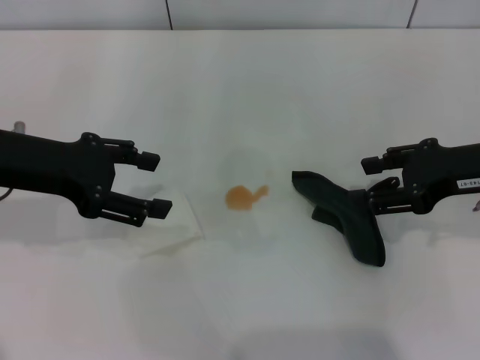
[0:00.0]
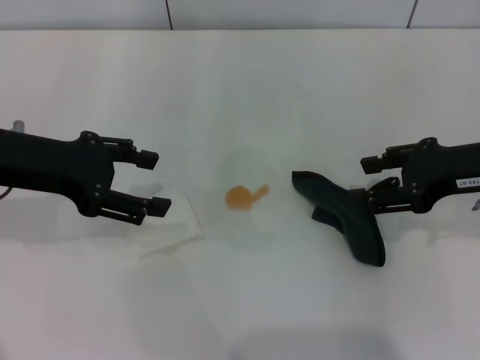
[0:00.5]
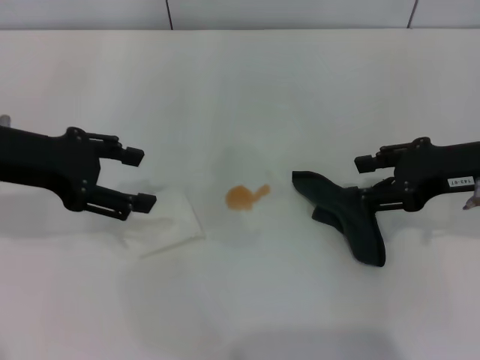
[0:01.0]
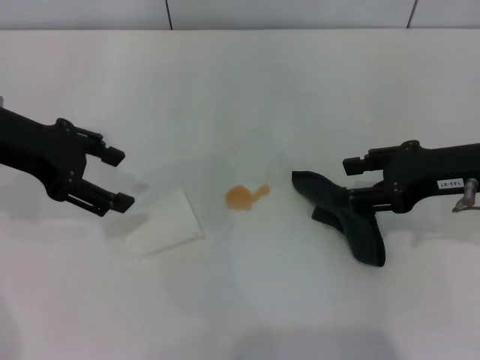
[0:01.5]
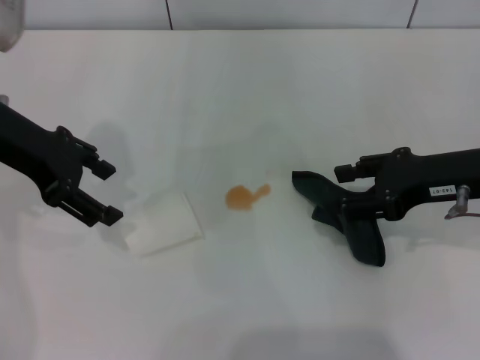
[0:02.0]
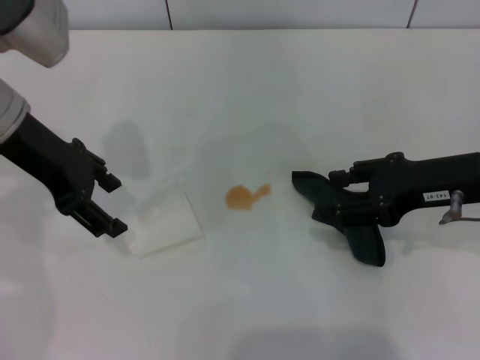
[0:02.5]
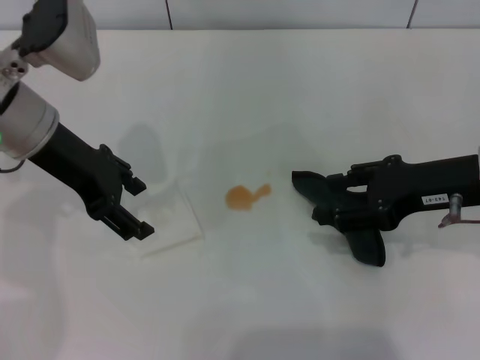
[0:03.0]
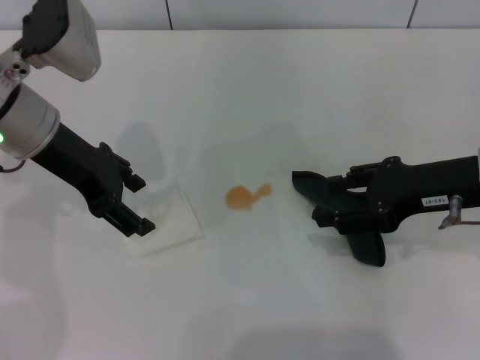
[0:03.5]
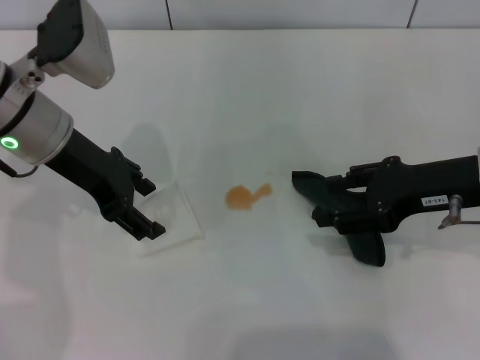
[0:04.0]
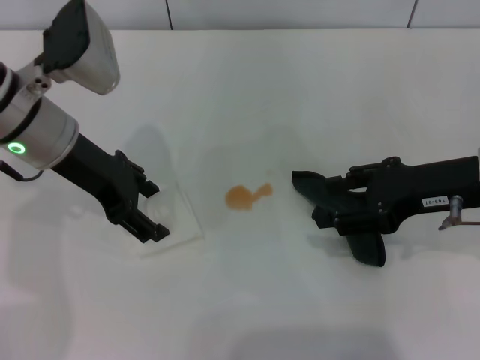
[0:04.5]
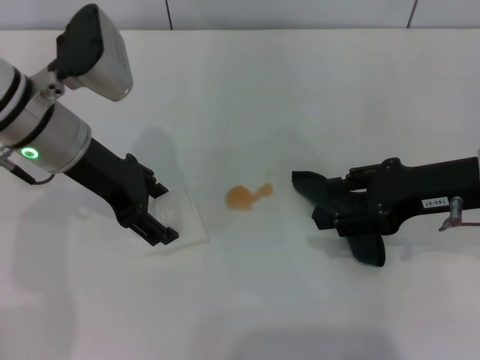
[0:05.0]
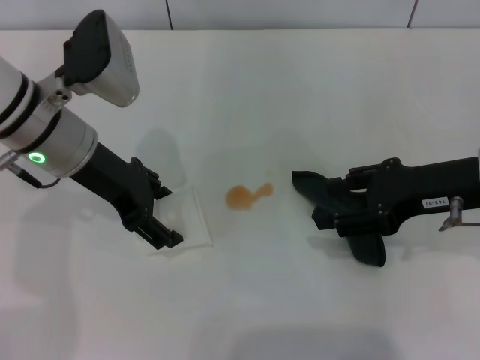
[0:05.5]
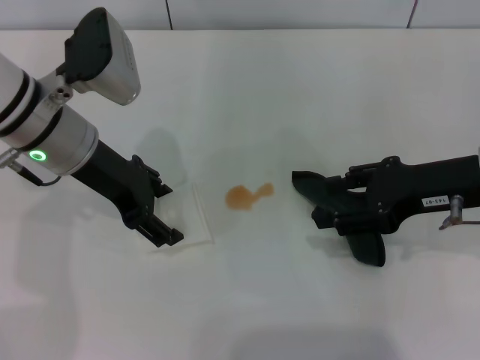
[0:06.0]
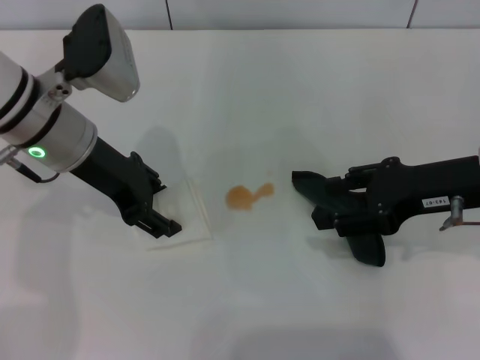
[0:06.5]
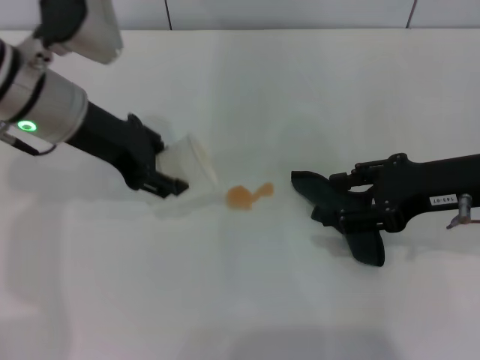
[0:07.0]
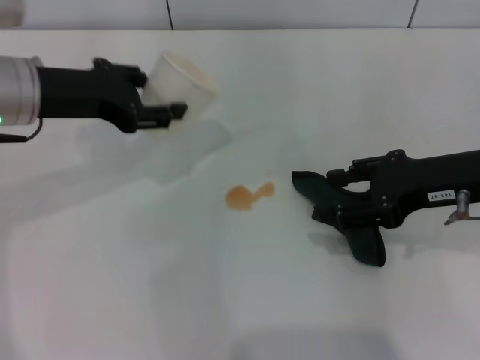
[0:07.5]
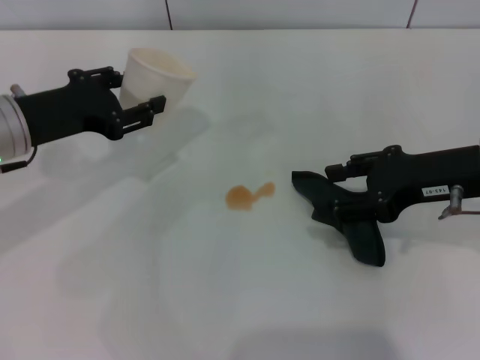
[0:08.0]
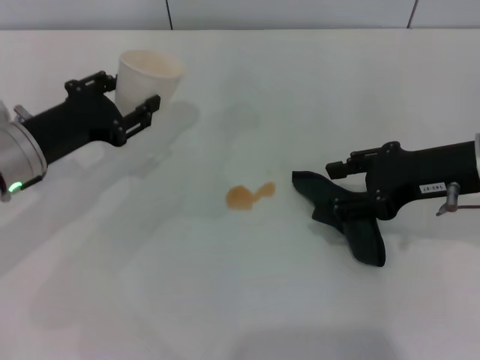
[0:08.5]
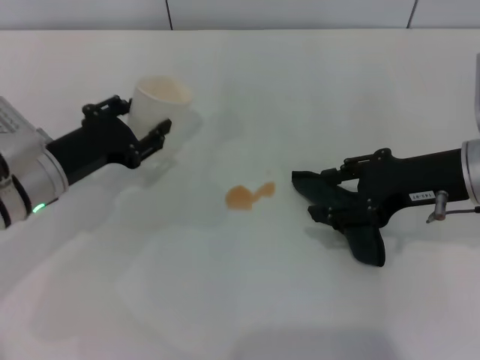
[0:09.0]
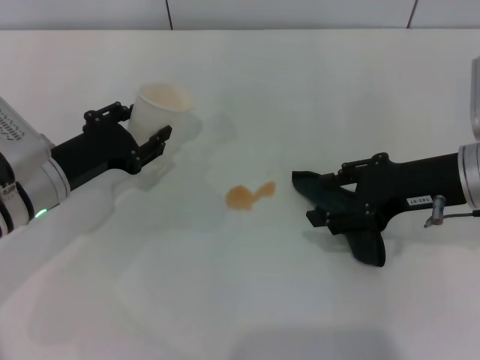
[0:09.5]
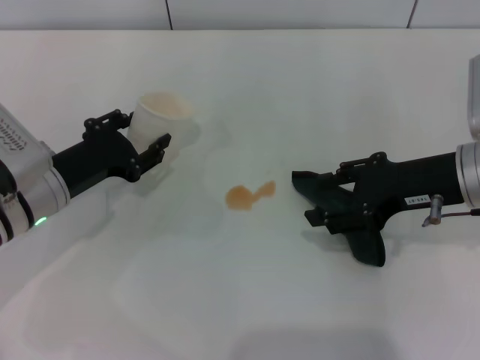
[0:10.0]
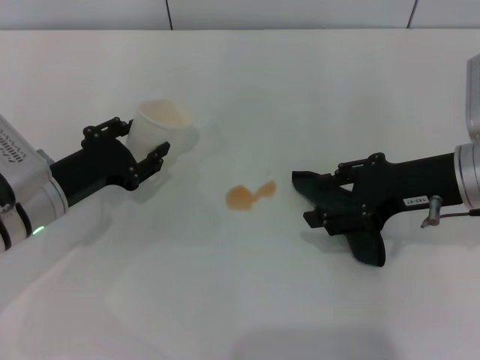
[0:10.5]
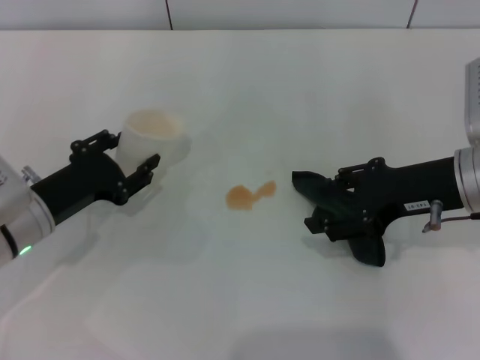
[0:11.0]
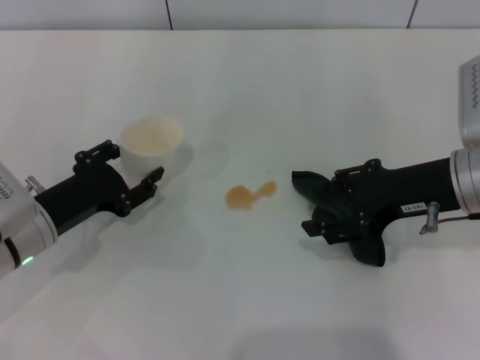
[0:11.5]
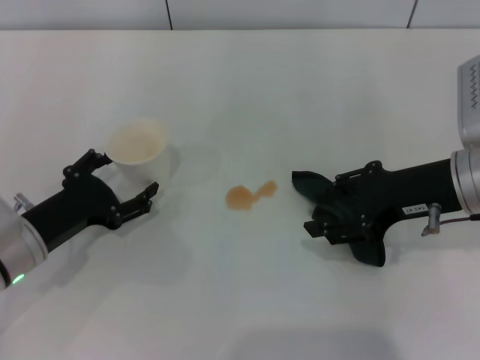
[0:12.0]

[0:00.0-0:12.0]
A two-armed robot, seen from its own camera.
Step, 0:00.0 to 0:06.0: Grasp the paper cup with the left gripper.
0:00.0 to 0:02.0: The left gripper shifts by approximately 5 cm.
0:02.0 to 0:04.0: The left gripper changes place by some 5 cm.
0:04.0 to 0:06.0: There are only small adjustments of the grippers.
0:06.0 to 0:08.0: The left gripper moves to the left, about 5 cm, and closes up.
0:08.0 to 0:10.0: The left gripper moves downward, roughly 10 cm.
0:10.0 to 0:12.0: The left gripper is displaced backward by some 5 cm, and opens.

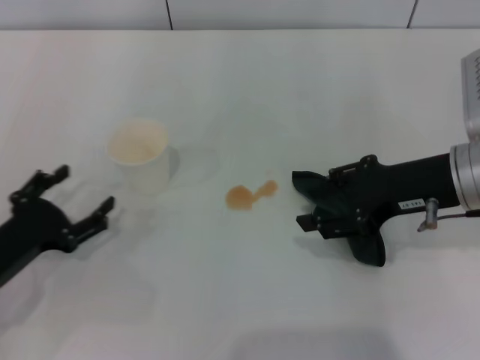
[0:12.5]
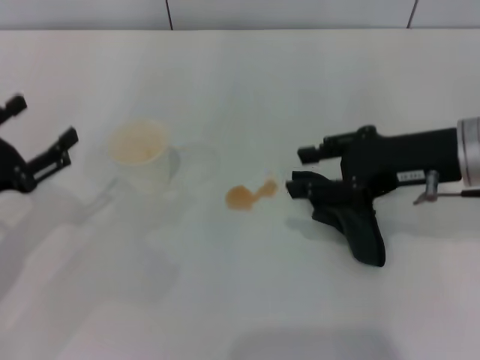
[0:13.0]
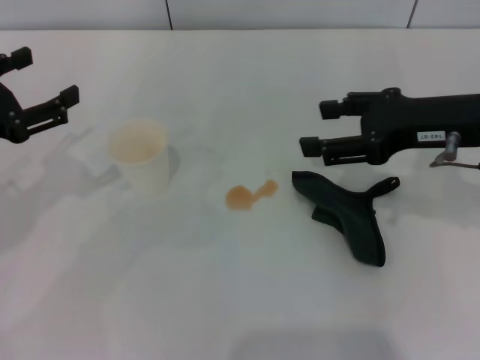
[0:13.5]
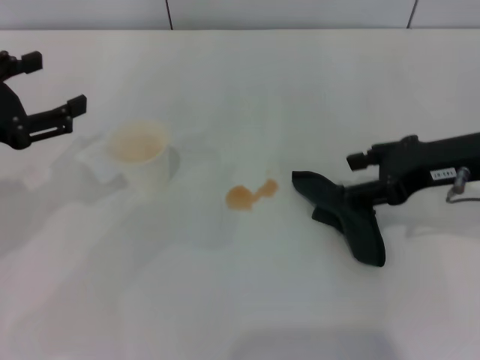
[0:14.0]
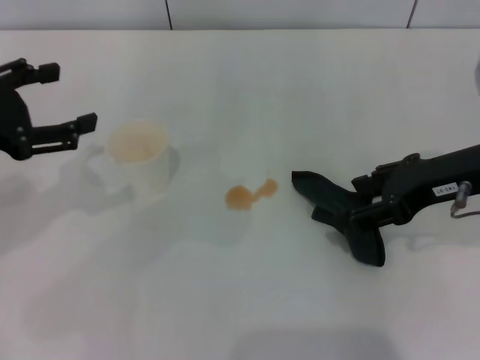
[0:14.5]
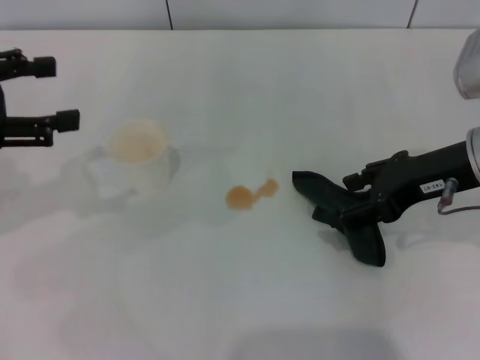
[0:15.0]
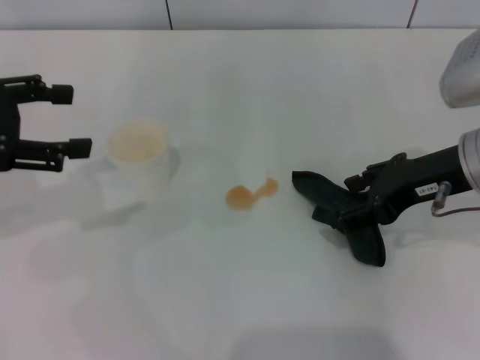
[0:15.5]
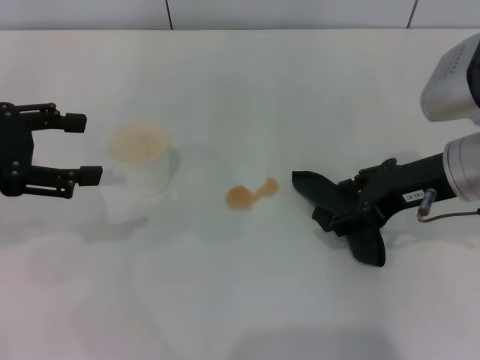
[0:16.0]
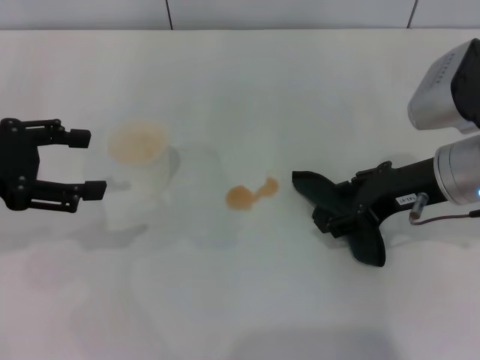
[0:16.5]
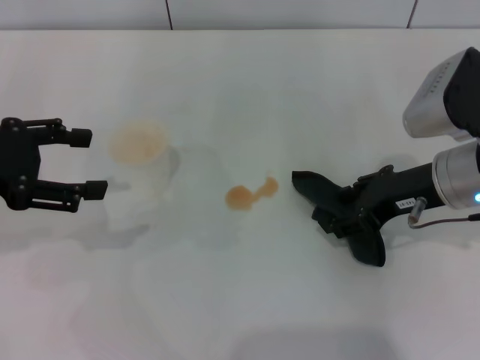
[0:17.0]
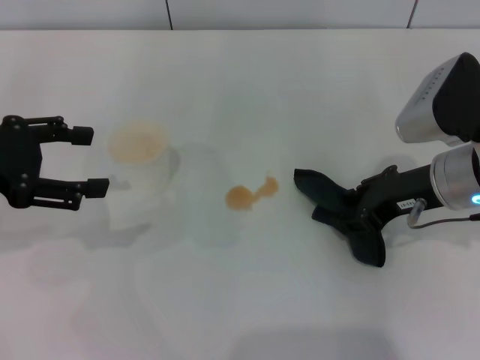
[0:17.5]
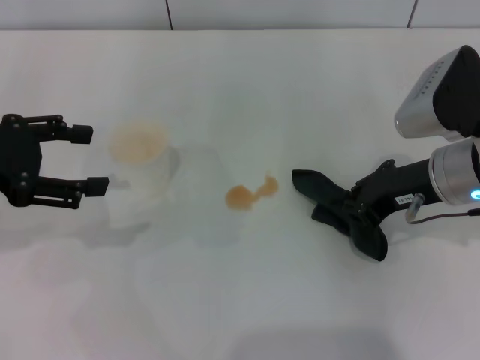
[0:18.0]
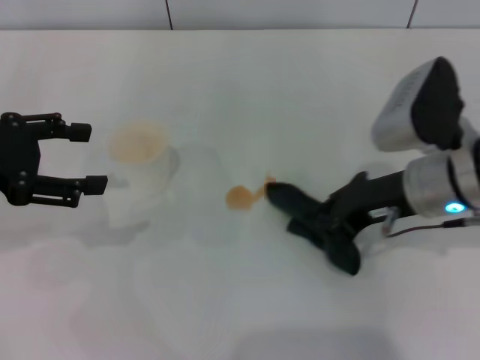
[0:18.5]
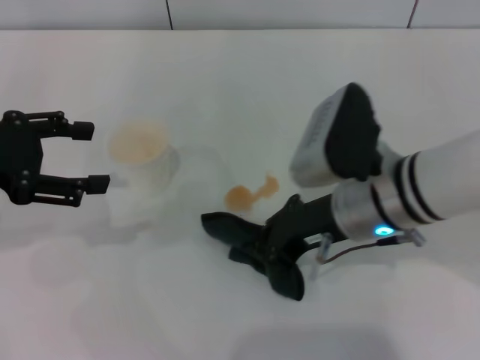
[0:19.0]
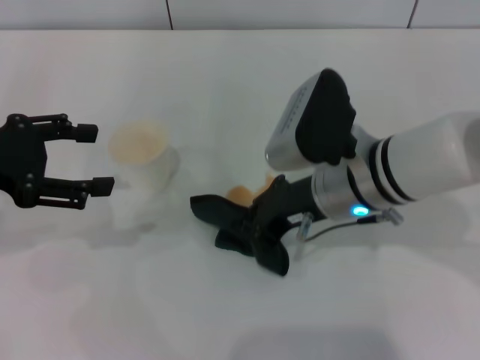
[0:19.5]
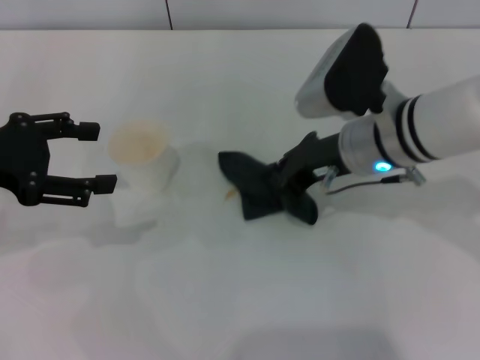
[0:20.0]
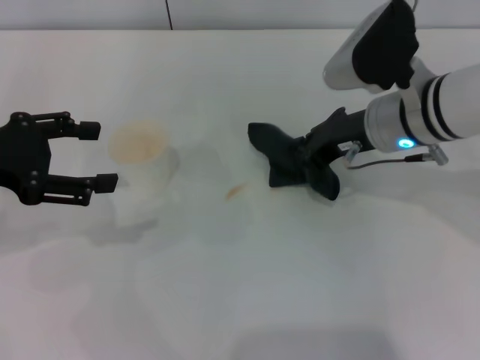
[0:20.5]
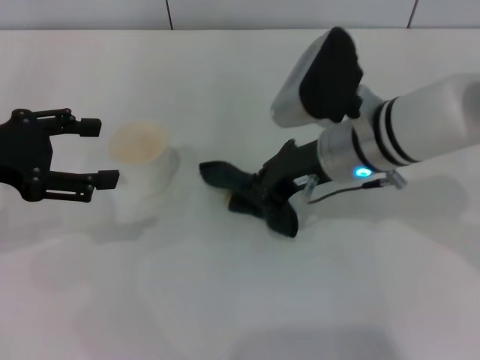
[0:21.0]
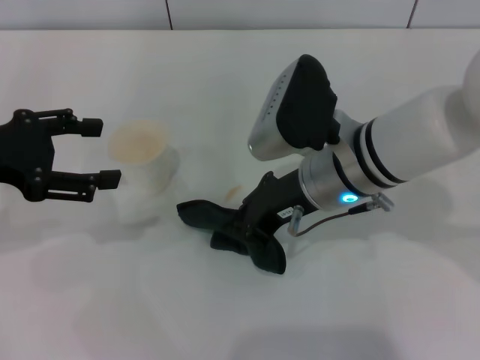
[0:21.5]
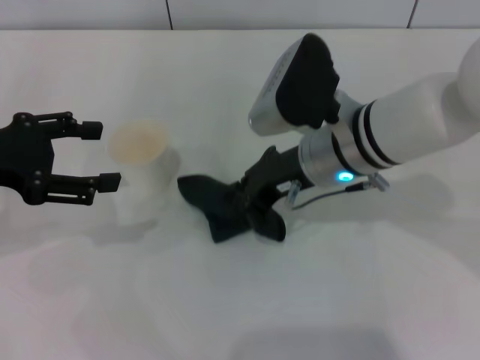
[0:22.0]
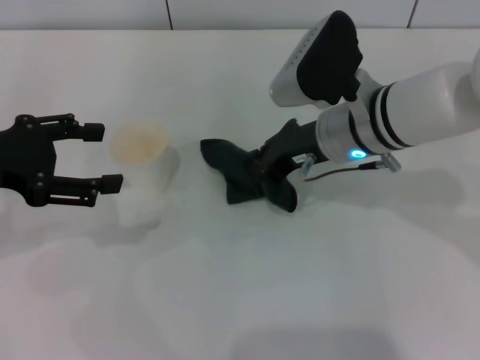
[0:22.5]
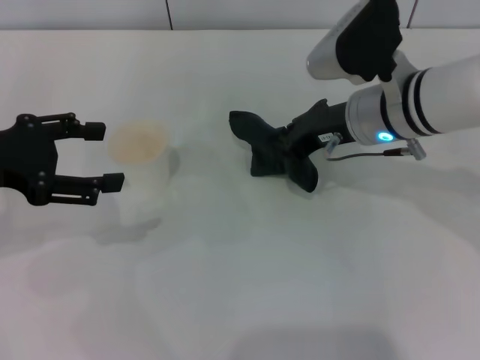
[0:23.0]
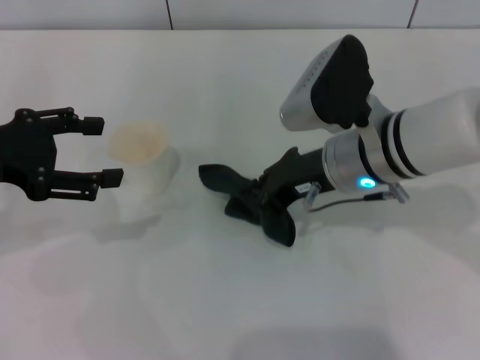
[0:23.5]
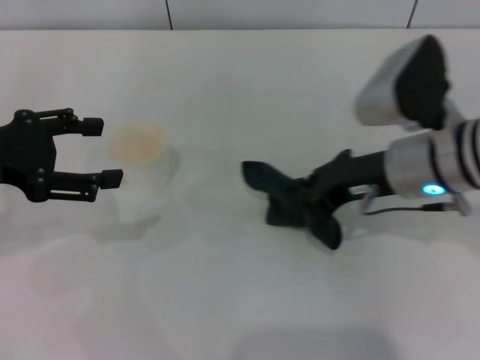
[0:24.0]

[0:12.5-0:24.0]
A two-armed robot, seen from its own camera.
Step, 0:12.5 to 0:18.0: Grasp the rag with the right gripper.
Step, 0:18.5 to 0:23.5: Wipe the stains off the table with the right gripper.
0:12.5 to 0:14.5: The left gripper shifts about 15 cm upward.
0:16.5 to 0:18.5: The right gripper closes up.
0:18.5 to 0:20.0: The right gripper heads to the left, covering some 5 cm.
0:20.0 to 0:22.0: The grippers make only small movements.
0:22.0 to 0:24.0: The right gripper goes roughly 10 cm to the right.

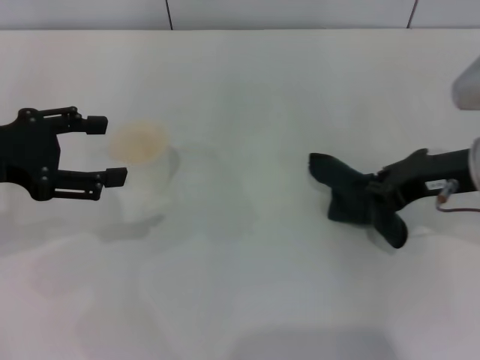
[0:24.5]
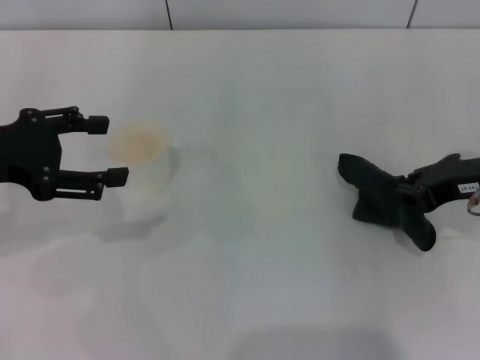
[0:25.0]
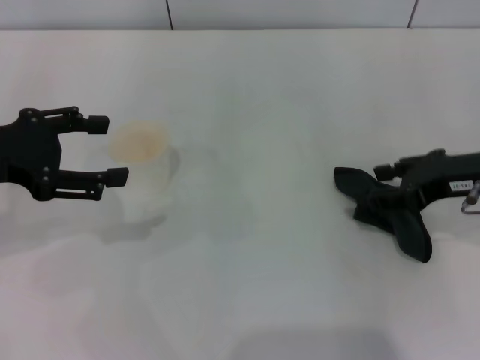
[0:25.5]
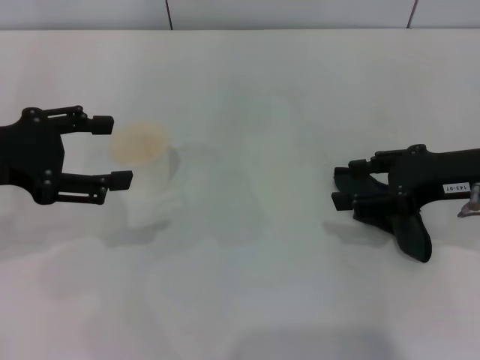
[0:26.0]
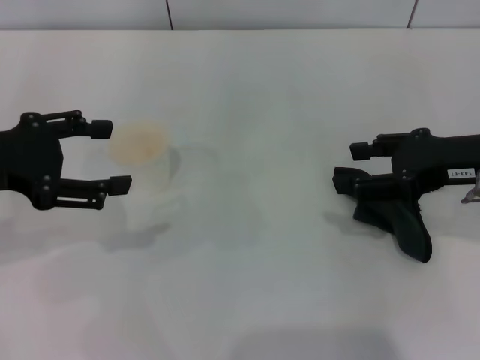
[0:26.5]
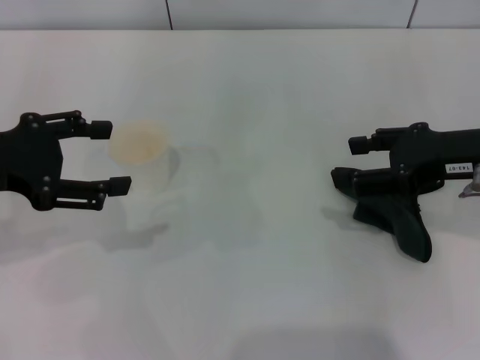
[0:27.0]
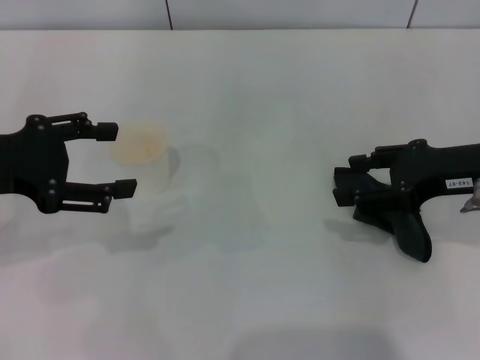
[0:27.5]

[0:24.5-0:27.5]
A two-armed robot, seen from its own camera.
Step, 0:24.5 to 0:26.0: Place the rag on the table with the right gripper.
0:24.5 to 0:26.0: The right gripper opens up.
0:26.0 to 0:27.5: Both grippers stay about where they are.
